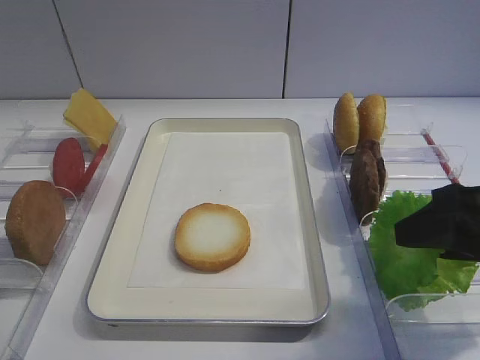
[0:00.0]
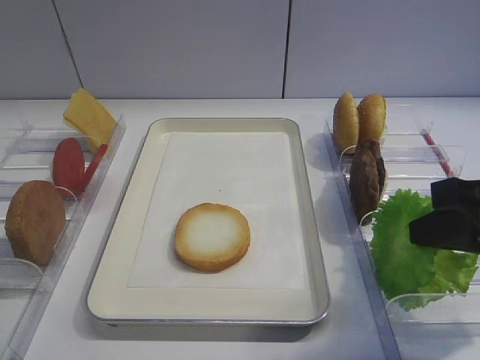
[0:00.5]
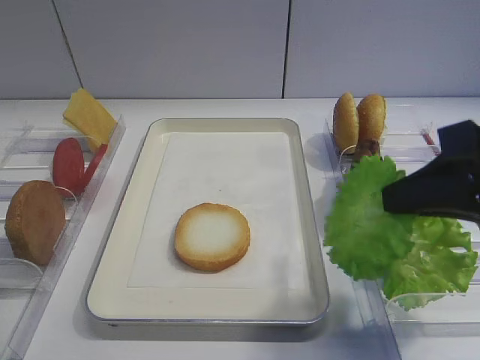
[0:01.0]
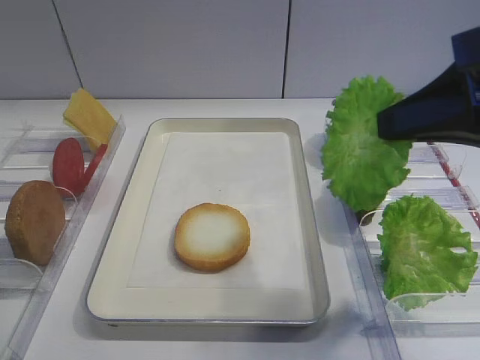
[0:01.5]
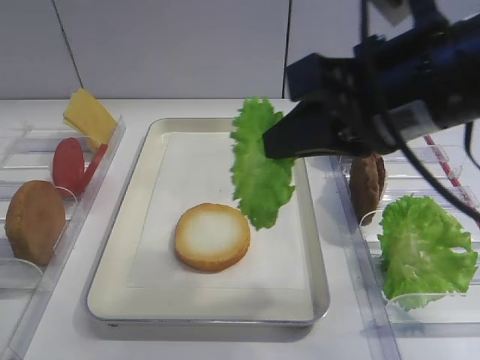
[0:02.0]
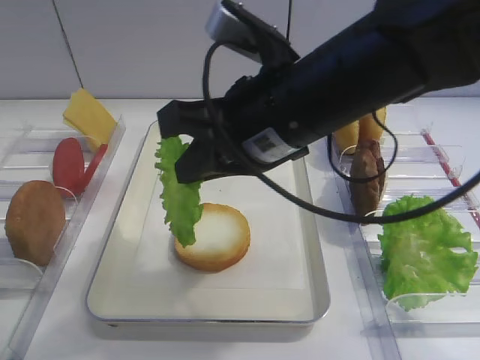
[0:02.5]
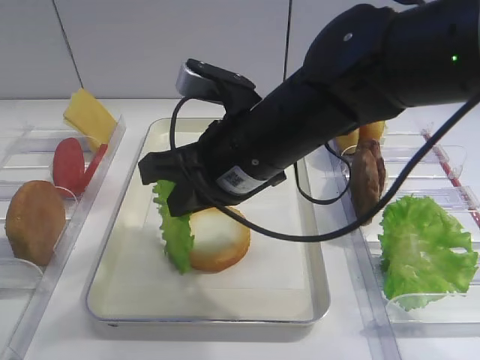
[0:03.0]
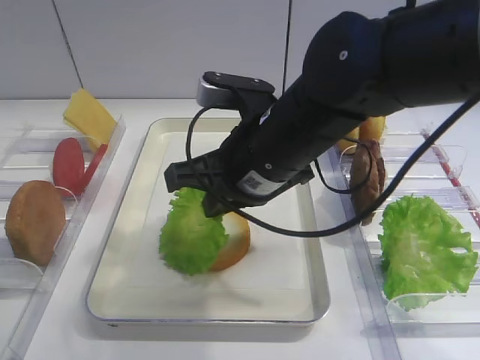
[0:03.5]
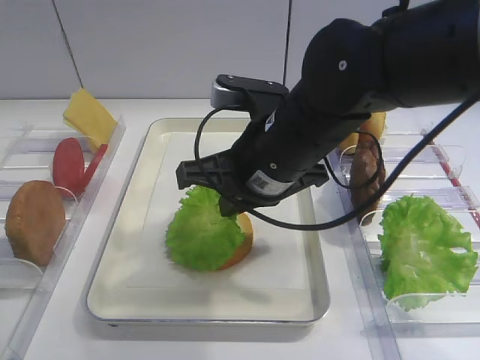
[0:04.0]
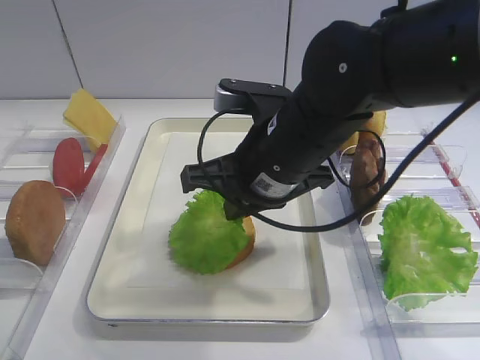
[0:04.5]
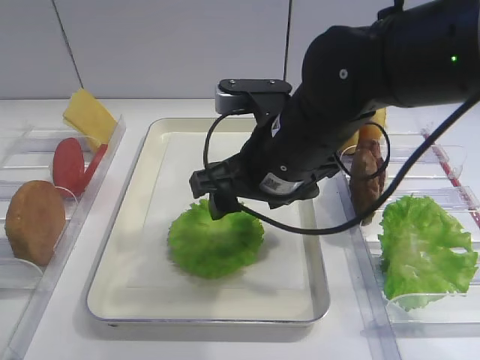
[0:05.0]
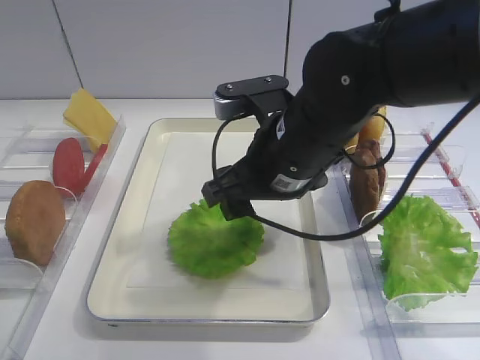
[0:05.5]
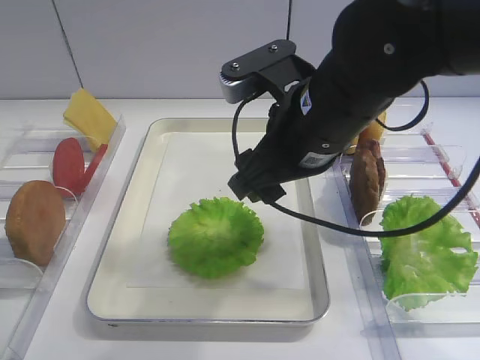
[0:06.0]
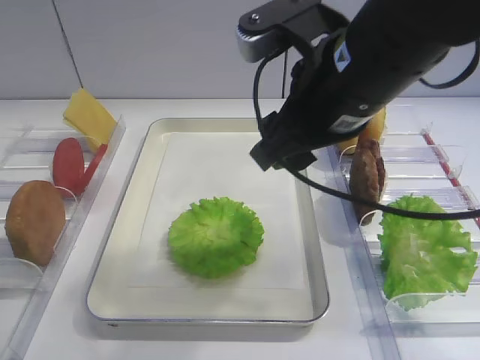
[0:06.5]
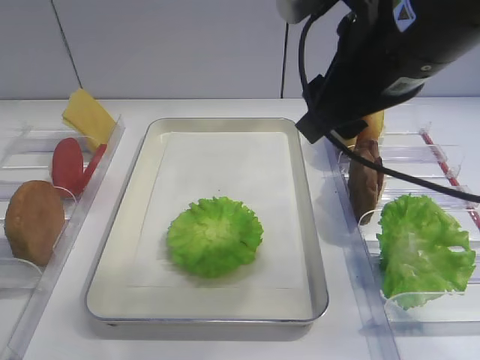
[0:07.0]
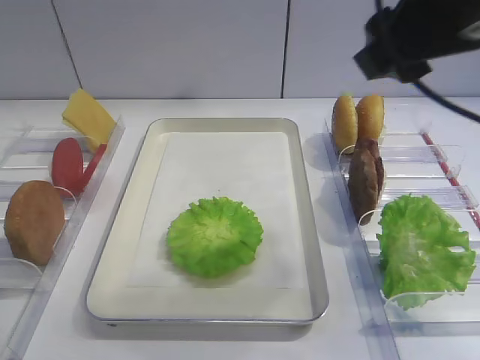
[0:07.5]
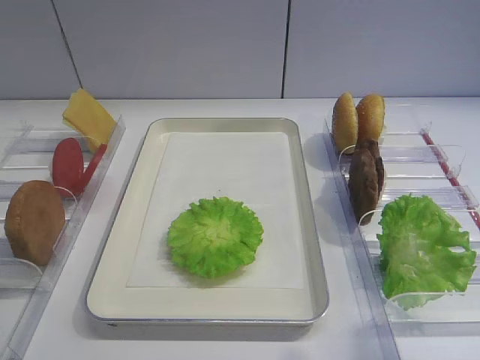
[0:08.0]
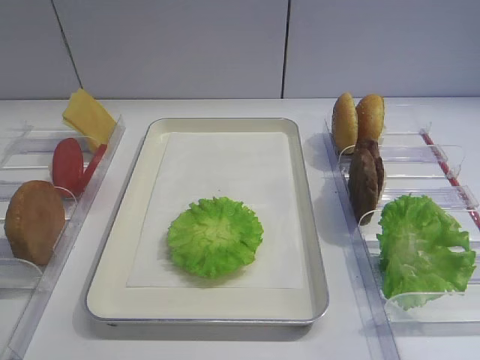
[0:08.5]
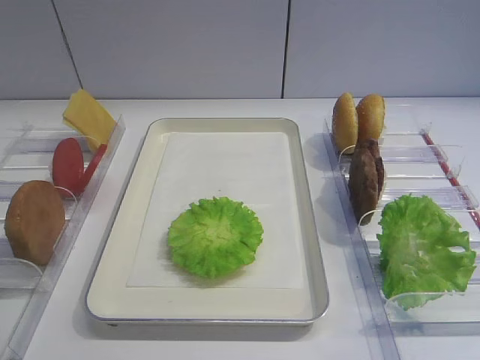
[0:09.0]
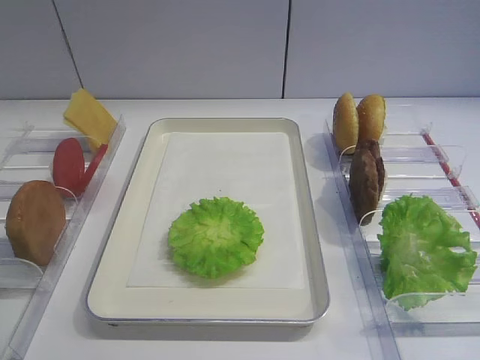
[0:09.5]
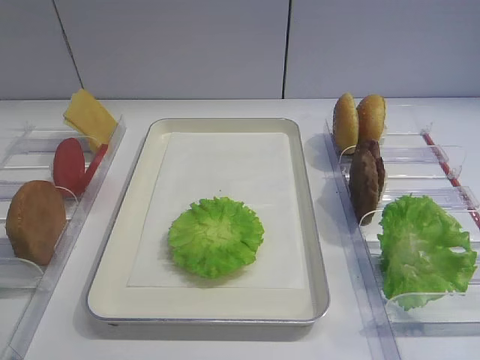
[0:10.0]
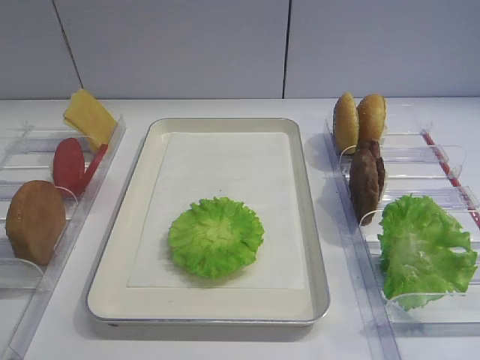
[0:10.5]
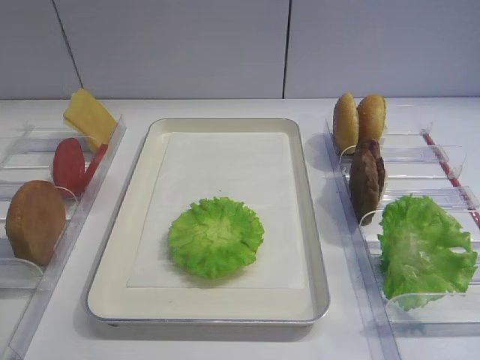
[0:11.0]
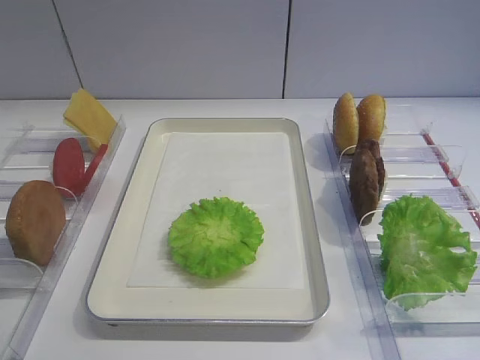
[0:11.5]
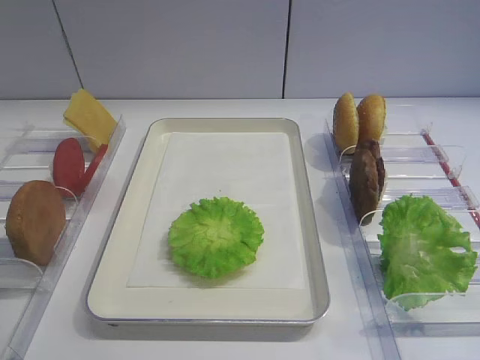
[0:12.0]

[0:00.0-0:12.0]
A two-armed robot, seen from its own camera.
Step, 0:01.5 to 0:06.0: Place the lettuce leaf on the bread slice with the right gripper.
0:00.0 to 0:02.0: The right gripper heads to the left and upward, covering some 15 cm, and closes.
0:02.0 to 0:04.0: The right gripper heads downward, to the left and forward, covering about 15 cm.
0:04.0 to 0:06.0: The right gripper opens.
0:06.0 to 0:08.0: The right gripper moves to the right, upward and backward, about 25 cm.
0:08.0 to 0:10.0: The right gripper shifts about 20 cm backward and downward.
0:10.0 to 0:12.0: Both grippers stay about where they are.

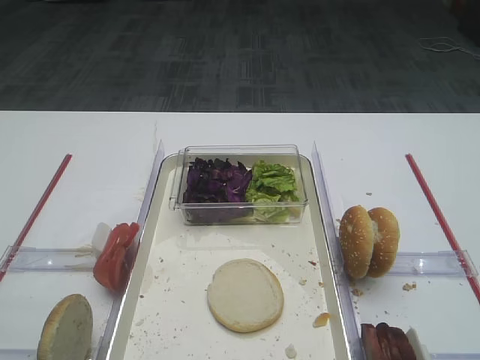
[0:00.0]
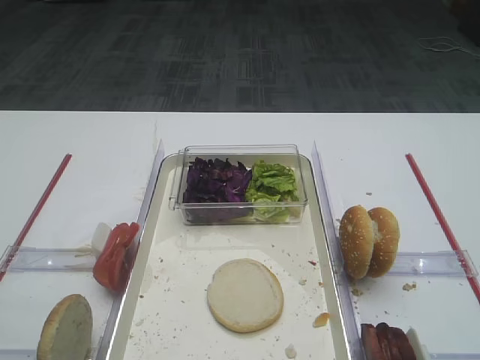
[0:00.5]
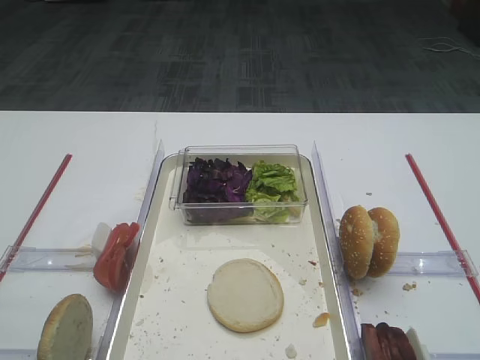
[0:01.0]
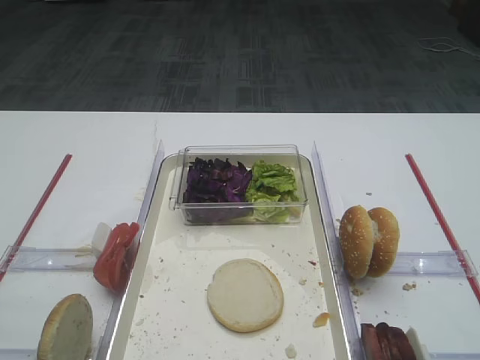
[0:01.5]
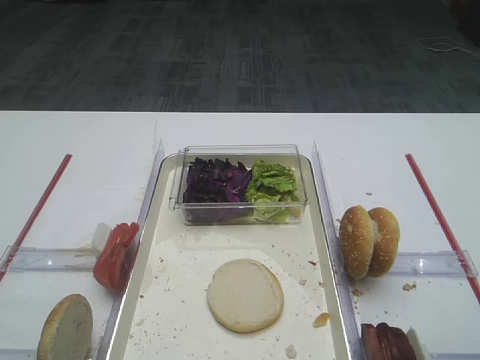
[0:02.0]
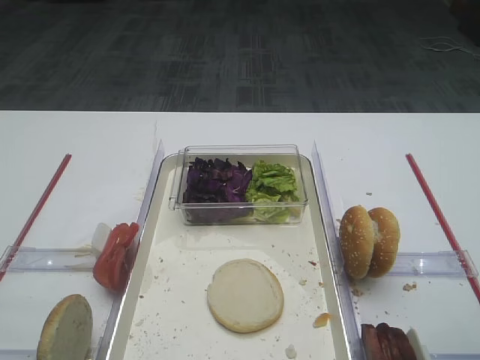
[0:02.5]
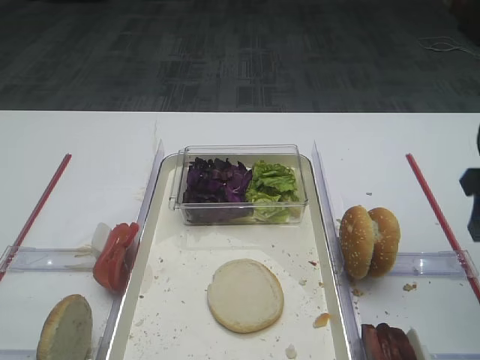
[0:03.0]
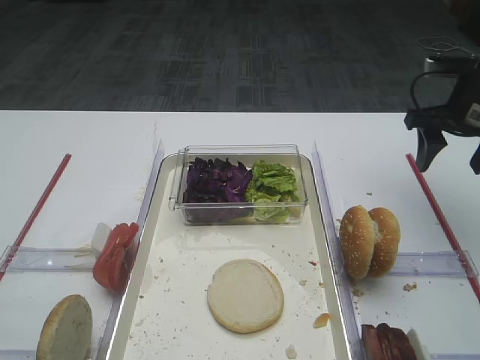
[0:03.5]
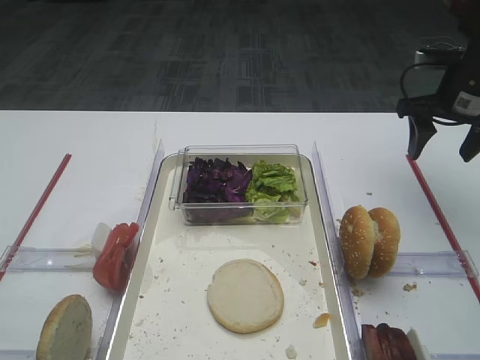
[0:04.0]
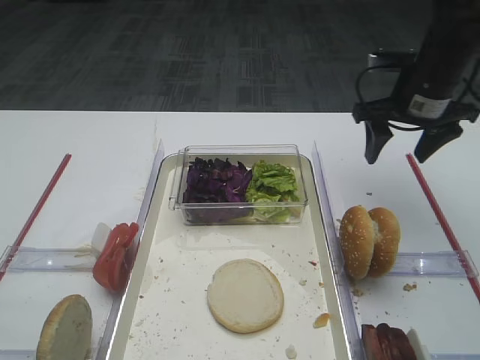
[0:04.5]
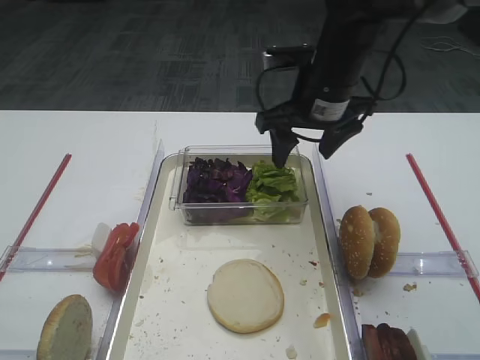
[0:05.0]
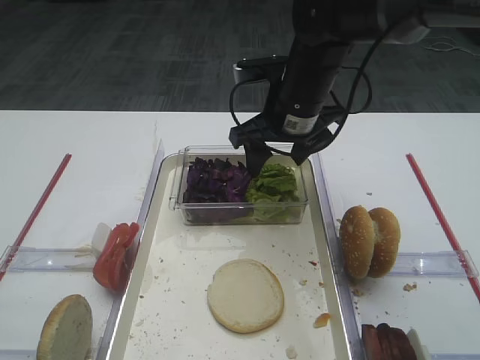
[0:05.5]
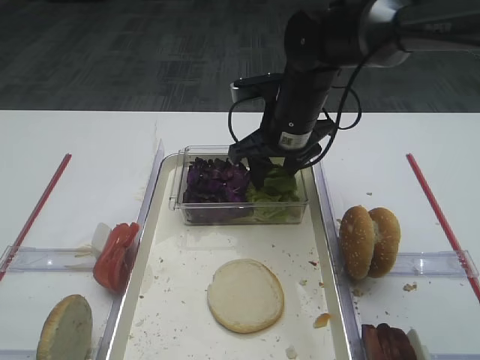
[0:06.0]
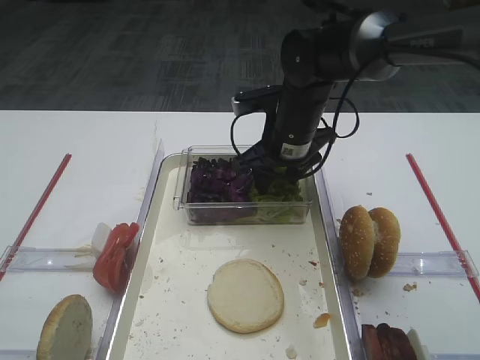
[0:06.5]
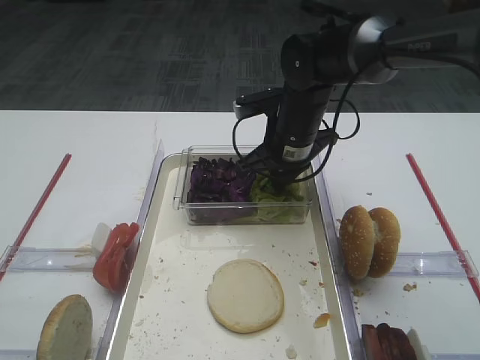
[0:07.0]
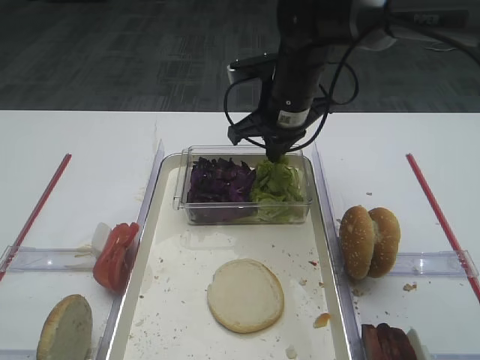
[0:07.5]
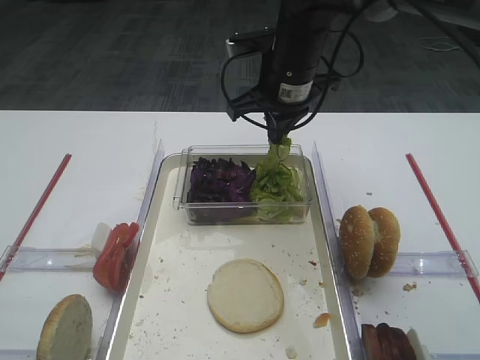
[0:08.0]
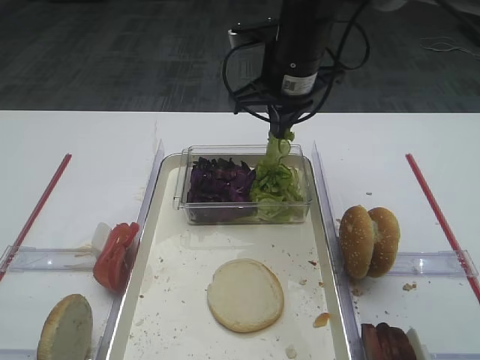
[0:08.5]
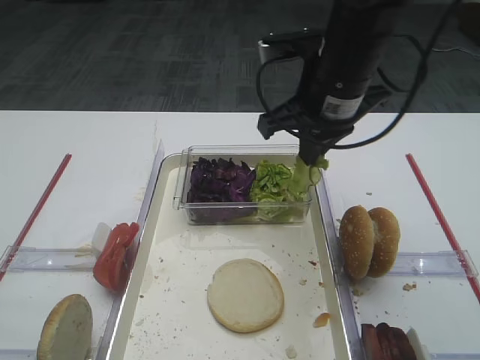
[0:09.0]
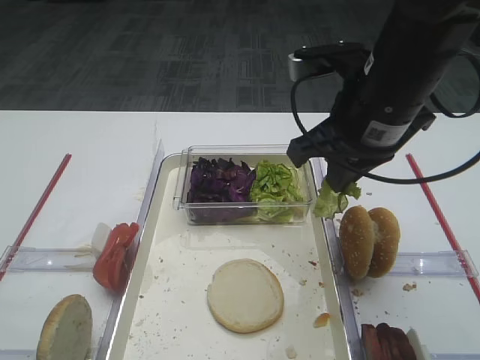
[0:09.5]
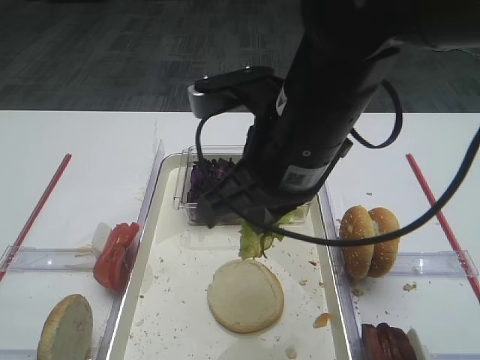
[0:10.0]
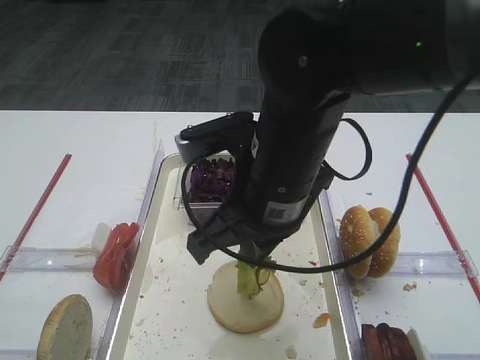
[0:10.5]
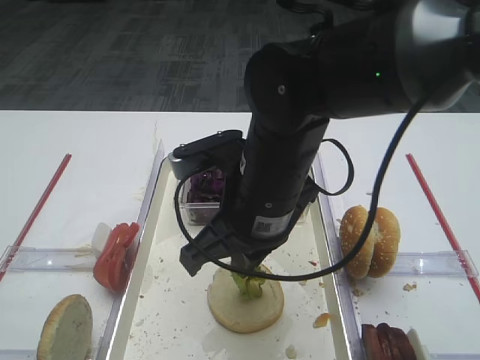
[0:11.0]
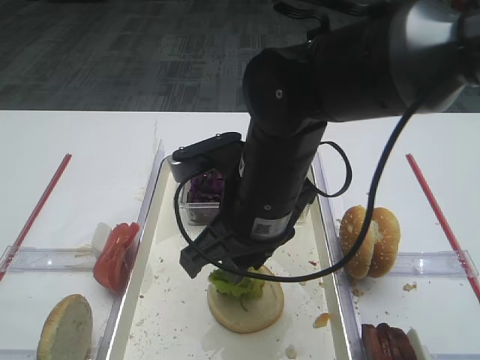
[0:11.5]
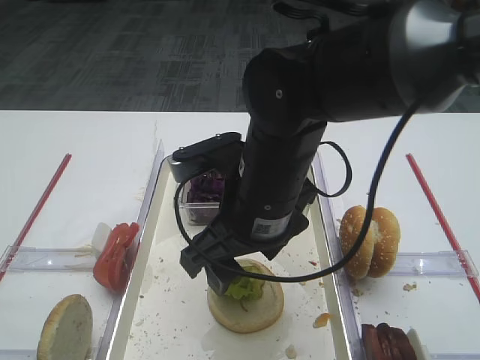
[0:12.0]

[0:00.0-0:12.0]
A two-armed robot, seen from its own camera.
Step, 0:00.0 to 0:08.0: Pick up the lettuce leaf with the right gripper.
0:02.0 to 0:04.0: The right gripper goes approximately 30 cm forward.
0:04.0 to 0:06.0: The right gripper is displaced to the left by approximately 20 cm.
0:06.0 to 0:08.0: The right gripper goes about 5 cm upward, and closes up.
0:08.0 to 0:10.0: The right gripper heads backward, covering roughly 20 cm.
0:10.0 to 0:12.0: The right gripper shifts about 5 cm downward, and opens.

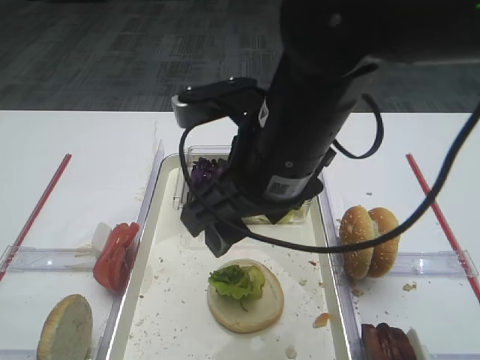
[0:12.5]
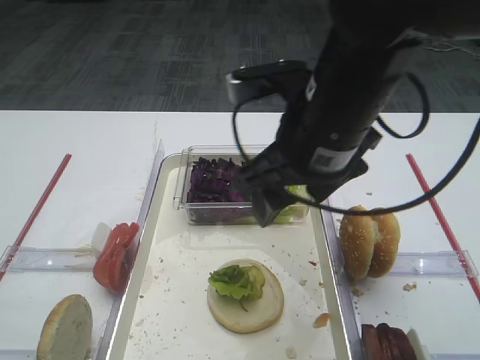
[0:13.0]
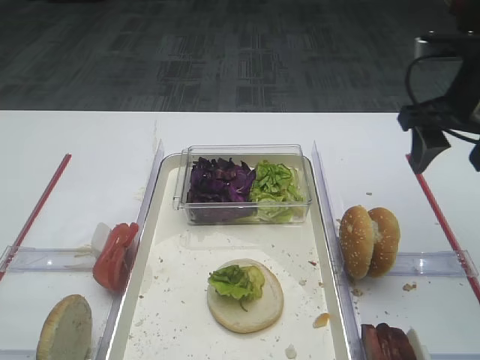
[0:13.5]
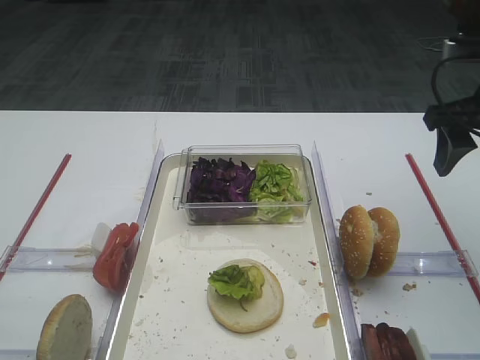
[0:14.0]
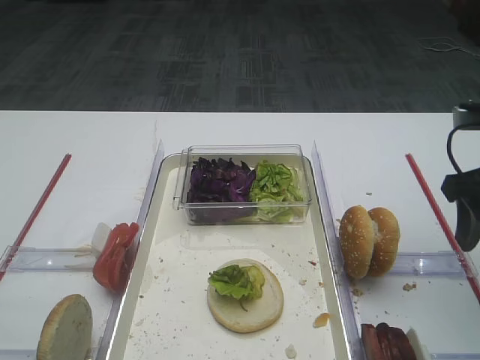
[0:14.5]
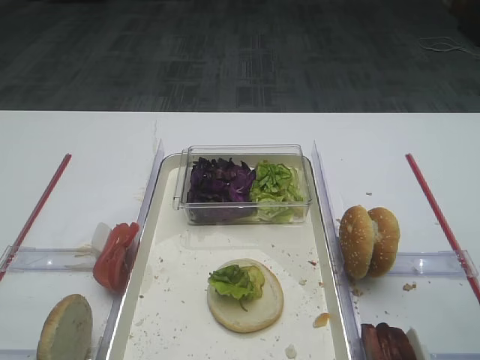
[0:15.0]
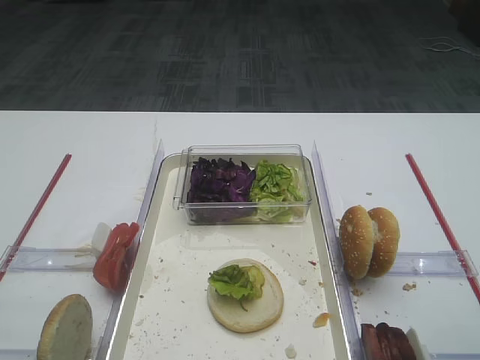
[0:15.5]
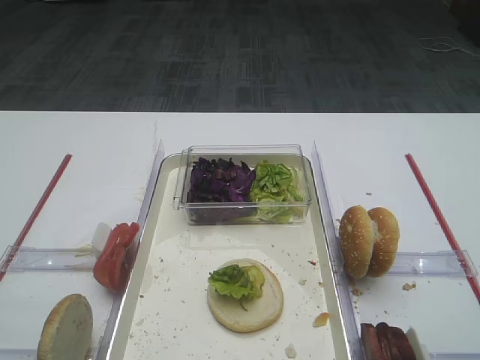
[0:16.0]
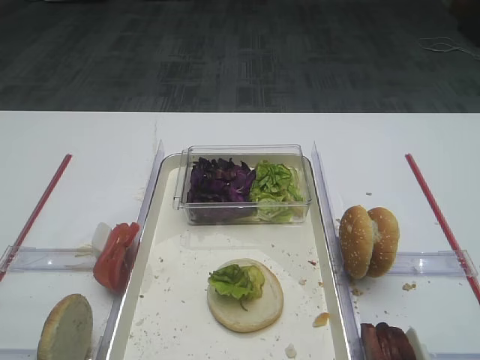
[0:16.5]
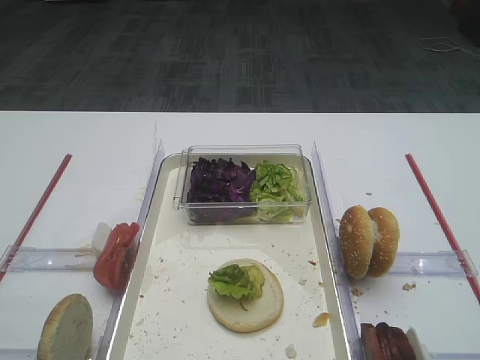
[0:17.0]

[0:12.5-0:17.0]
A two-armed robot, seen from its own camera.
0:12.5 to 0:14.5: The right gripper travels to the right by roughly 25 cm.
0:14.5 to 0:17.0: The right gripper moves backward, approximately 25 cm.
